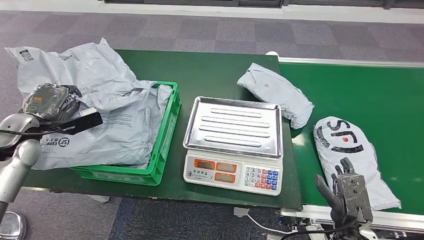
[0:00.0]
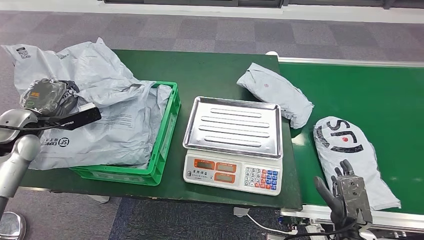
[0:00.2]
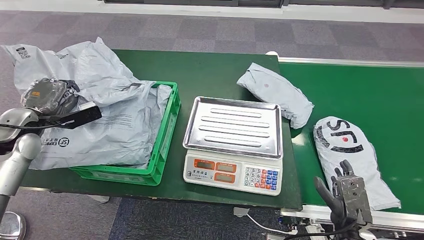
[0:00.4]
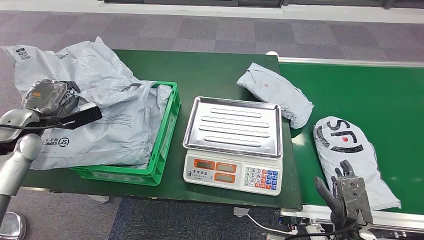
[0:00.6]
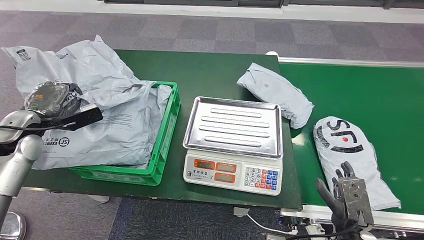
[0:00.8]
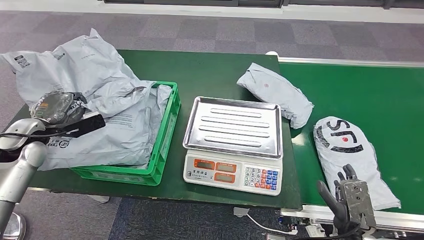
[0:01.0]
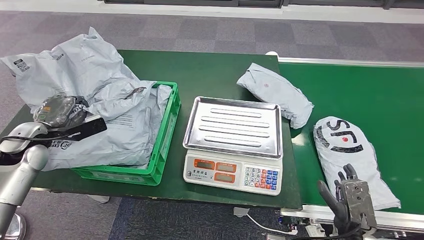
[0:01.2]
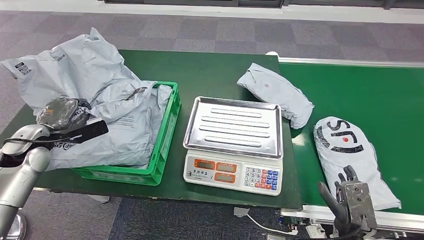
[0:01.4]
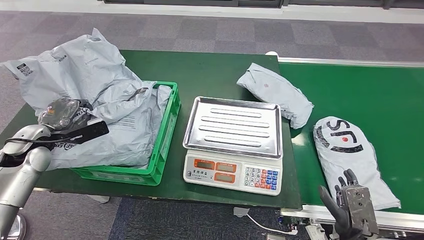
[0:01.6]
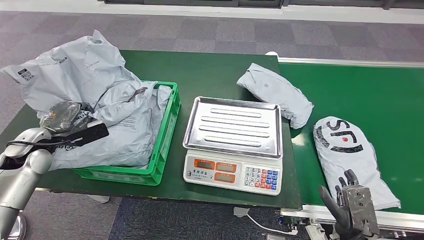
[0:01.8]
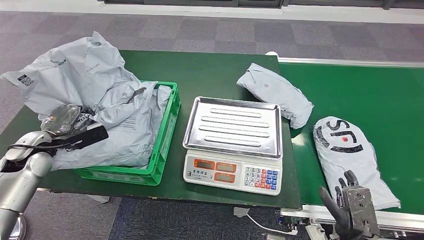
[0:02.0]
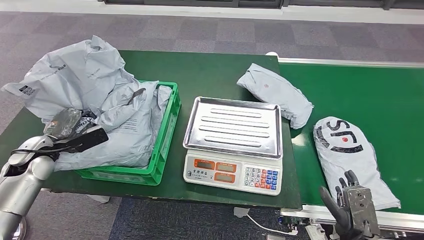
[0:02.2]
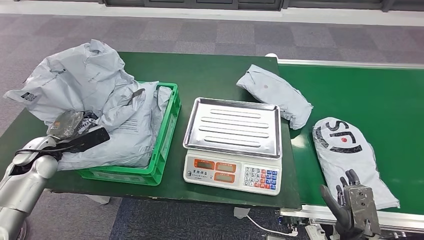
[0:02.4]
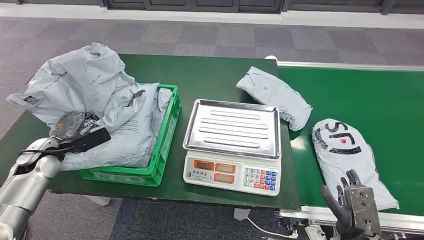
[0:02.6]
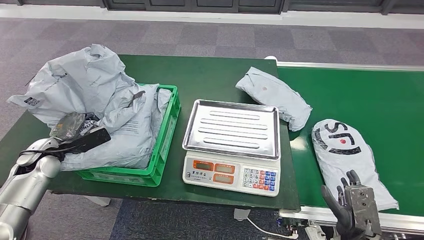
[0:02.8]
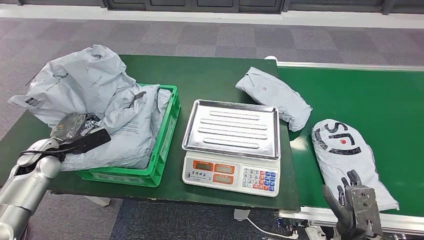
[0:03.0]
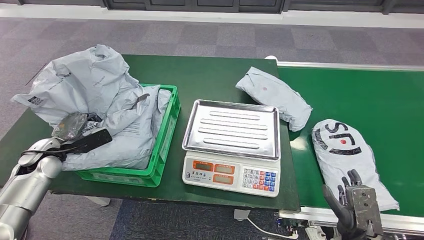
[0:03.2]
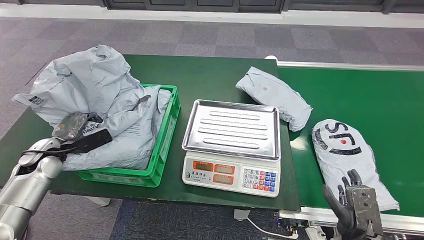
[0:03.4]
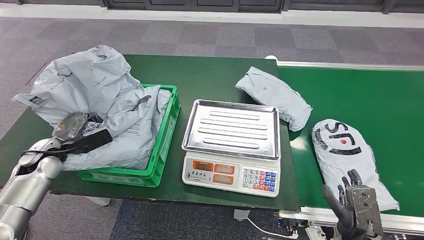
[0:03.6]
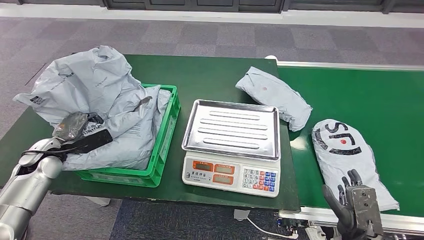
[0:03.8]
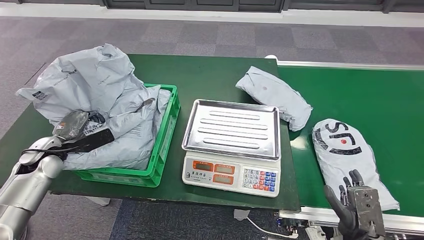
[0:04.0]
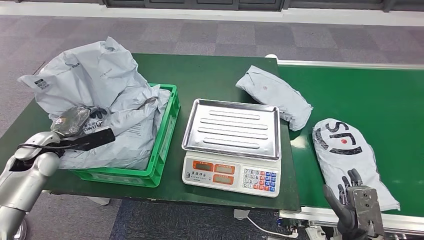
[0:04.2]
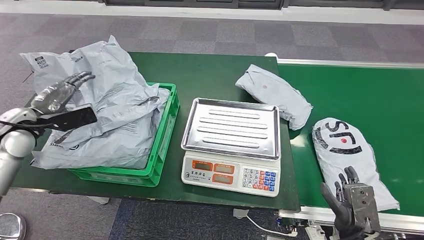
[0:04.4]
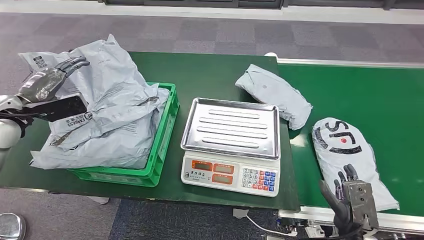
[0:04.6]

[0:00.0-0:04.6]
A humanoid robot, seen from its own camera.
Step, 0:00.0 to 0:04.4: Put the parcel inside the courier box.
0:00.0 to 0:01.6: The hands move only a little.

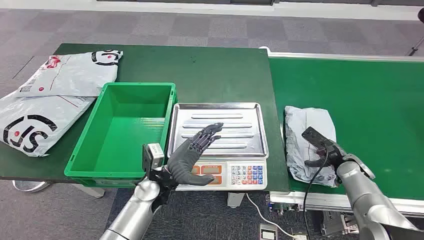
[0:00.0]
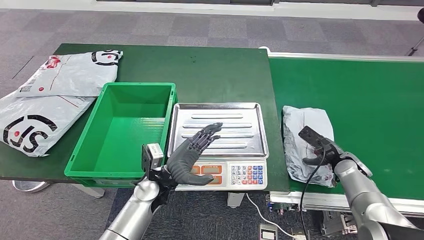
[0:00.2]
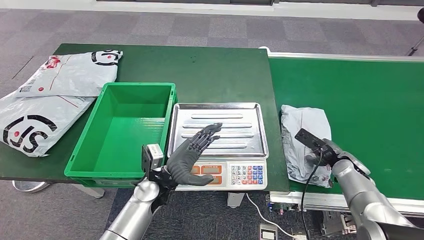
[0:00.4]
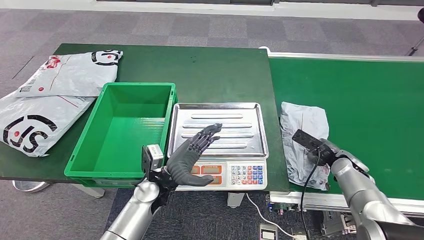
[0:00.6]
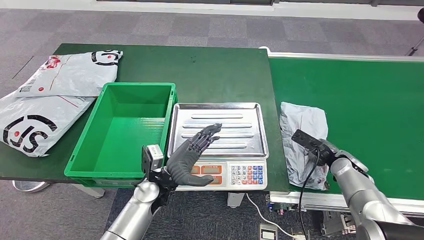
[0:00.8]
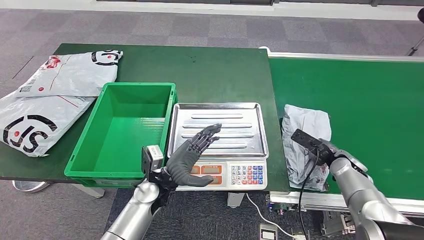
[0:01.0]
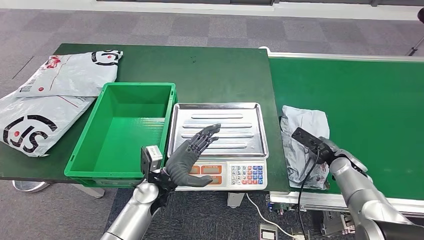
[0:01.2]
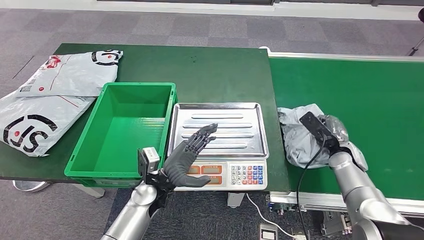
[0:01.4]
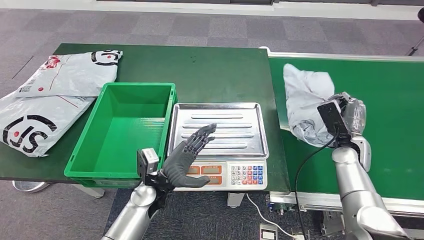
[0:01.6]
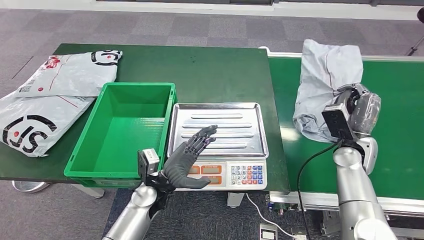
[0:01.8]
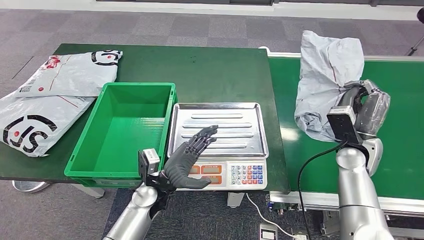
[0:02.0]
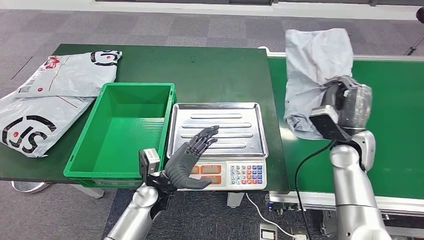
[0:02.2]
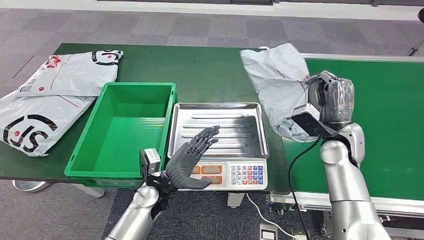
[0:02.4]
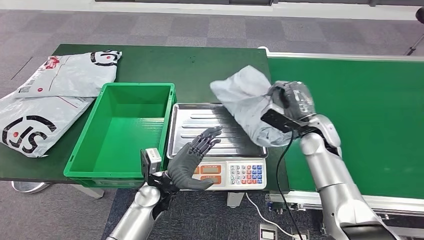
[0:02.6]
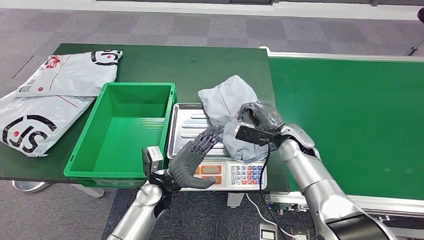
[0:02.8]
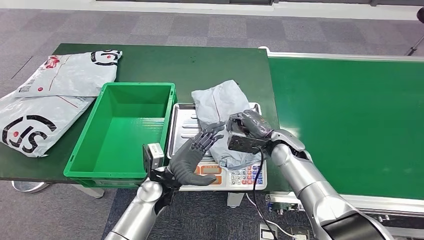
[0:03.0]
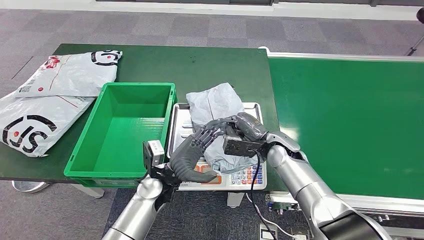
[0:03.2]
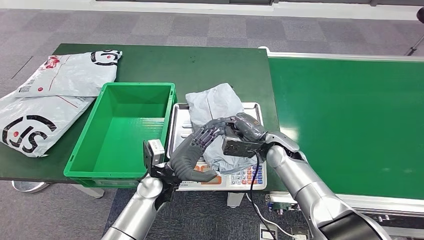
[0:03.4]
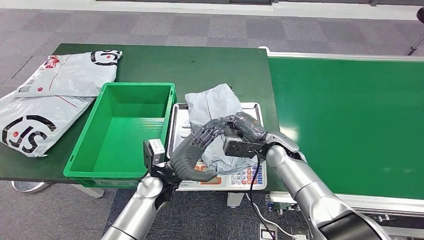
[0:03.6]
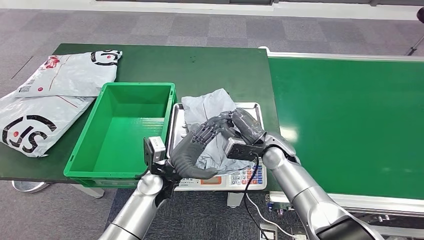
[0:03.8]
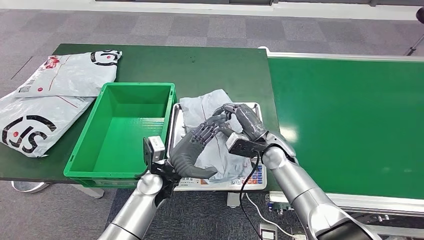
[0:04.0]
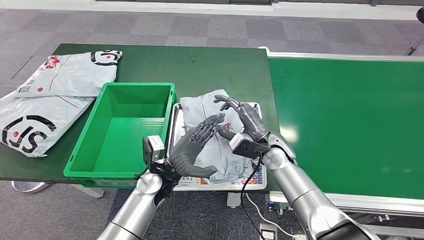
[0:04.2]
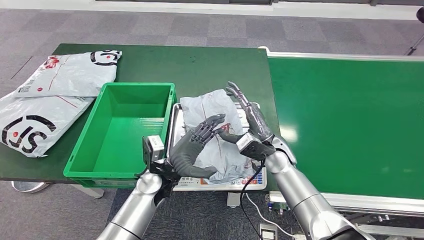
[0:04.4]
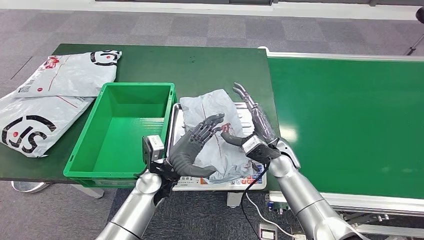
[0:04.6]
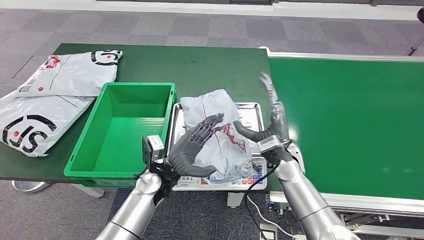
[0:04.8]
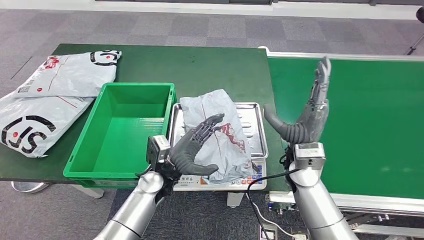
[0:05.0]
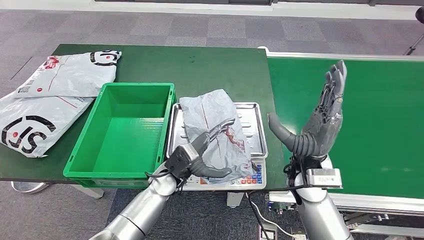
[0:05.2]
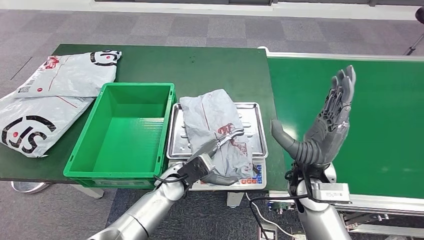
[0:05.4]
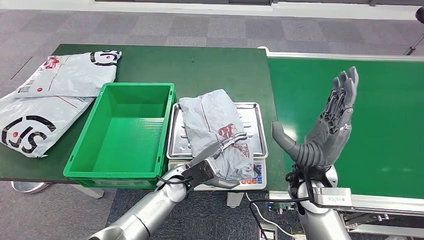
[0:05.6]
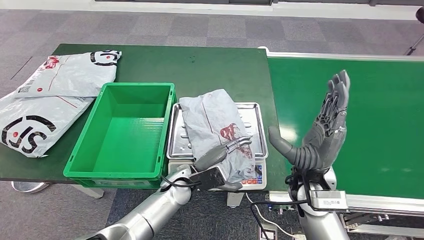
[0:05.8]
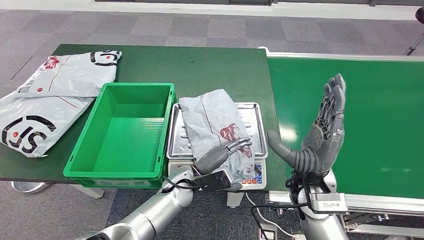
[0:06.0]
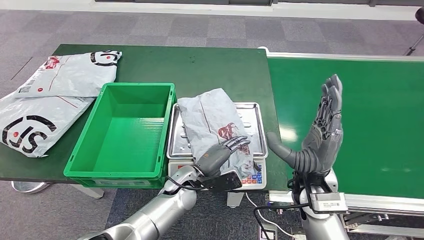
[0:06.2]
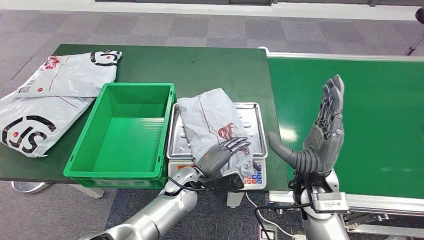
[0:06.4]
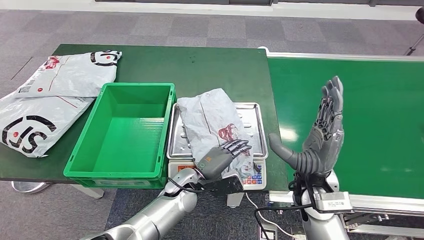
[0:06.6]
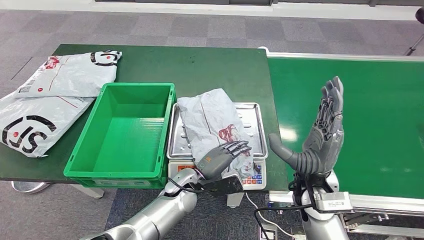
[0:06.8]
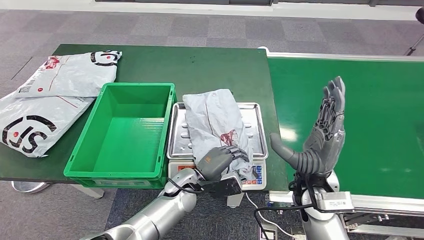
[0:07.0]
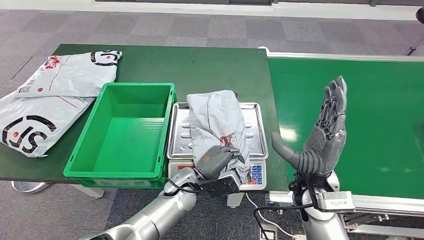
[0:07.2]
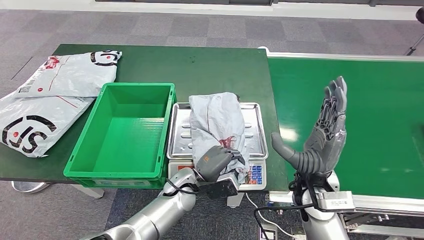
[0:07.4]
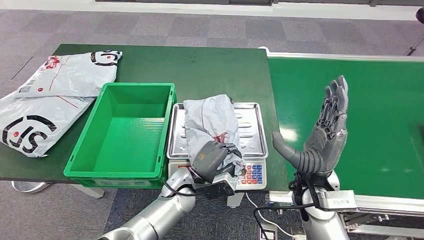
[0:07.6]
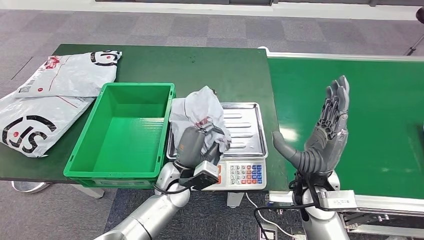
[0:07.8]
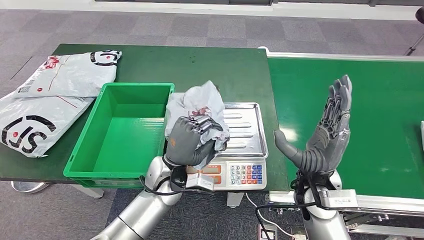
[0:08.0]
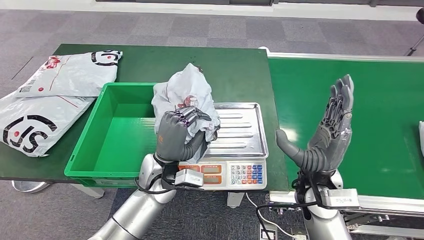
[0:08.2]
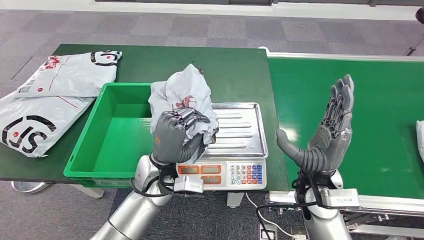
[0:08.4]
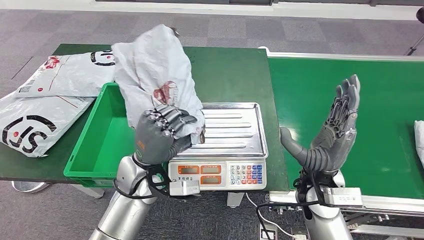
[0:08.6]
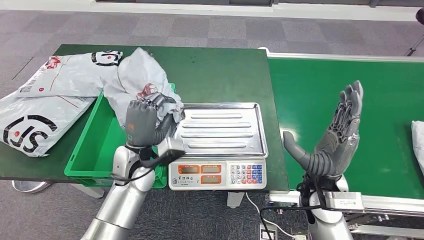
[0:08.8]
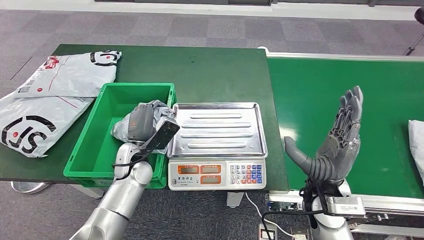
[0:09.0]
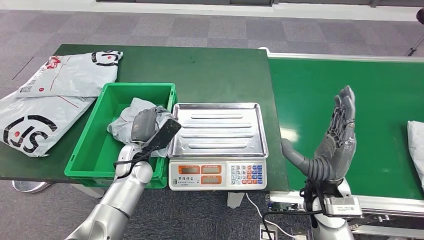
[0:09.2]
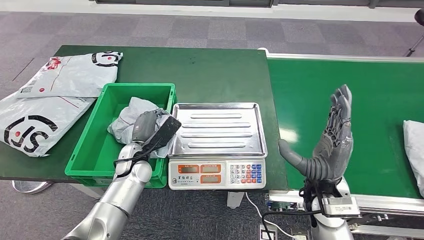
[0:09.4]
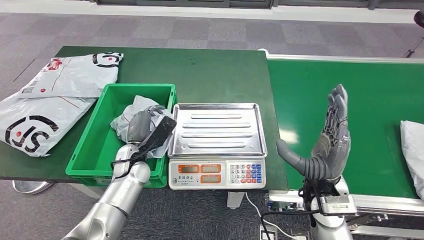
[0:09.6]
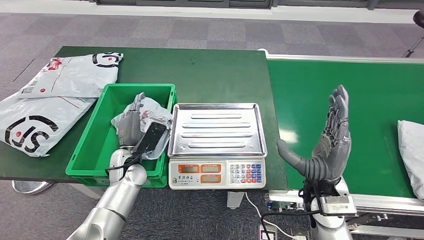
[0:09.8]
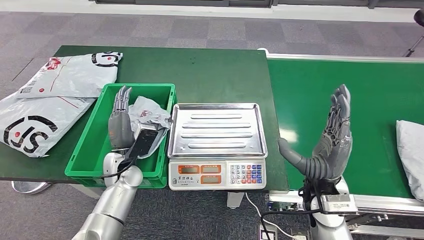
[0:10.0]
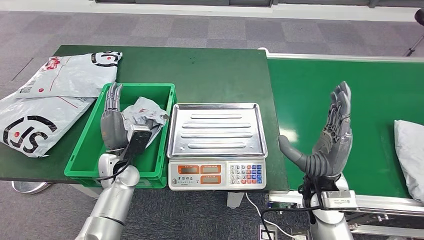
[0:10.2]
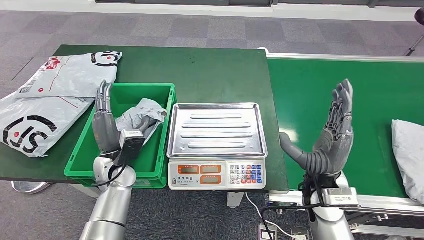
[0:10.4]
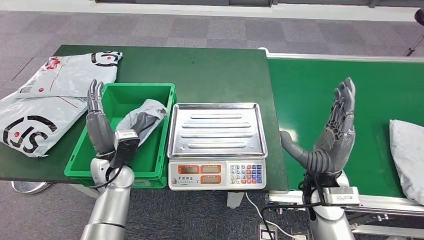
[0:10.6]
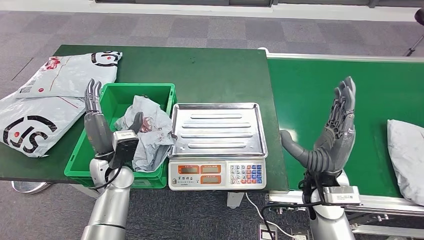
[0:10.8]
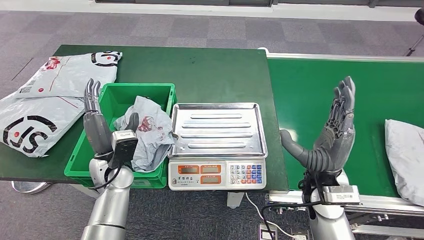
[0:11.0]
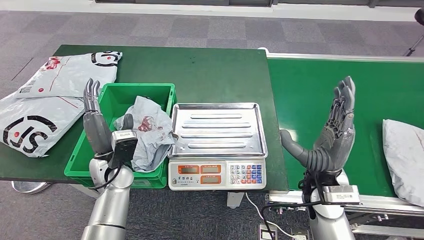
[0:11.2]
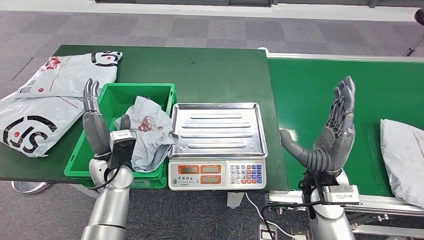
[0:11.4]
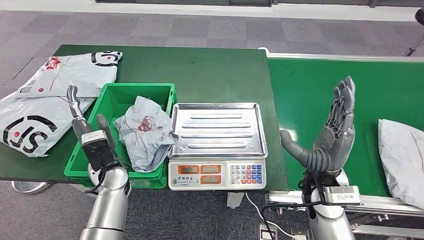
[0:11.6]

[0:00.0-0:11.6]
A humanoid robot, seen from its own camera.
Step, 0:00.0 to 0:01.8: Take the parcel off the conveyor belt.
Step, 0:02.0 to 0:04.4: Place the parcel onto the inbound machine.
Step, 0:05.8 to 0:08.2: Pick up the parcel from the inbound machine.
Step, 0:08.4 to 0:11.6: Put the parcel inside the courier box.
0:01.4 to 0:02.8: The right hand heads to the left, covering roughly 15 cm.
0:02.8 to 0:04.4: The right hand travels to the left by roughly 5 cm.
0:04.4 to 0:05.8: The right hand shifts some 10 cm backward and upward.
0:05.8 to 0:07.2: There are only small adjustments of the hands.
0:08.8 to 0:10.2: The left hand is displaced to the left and downward by roughly 5 cm.
